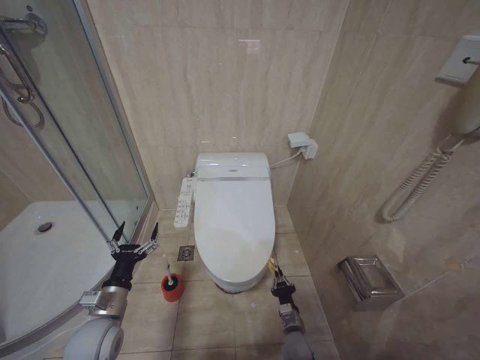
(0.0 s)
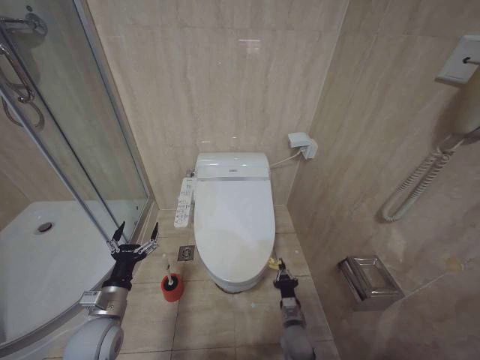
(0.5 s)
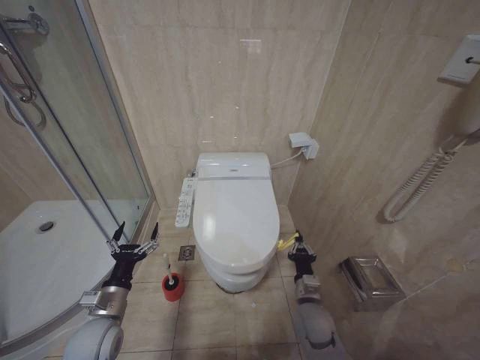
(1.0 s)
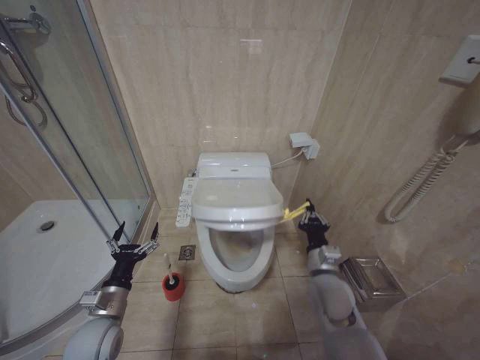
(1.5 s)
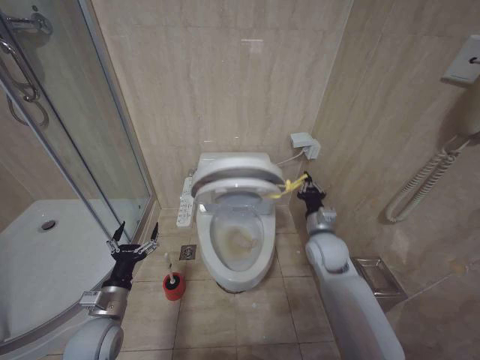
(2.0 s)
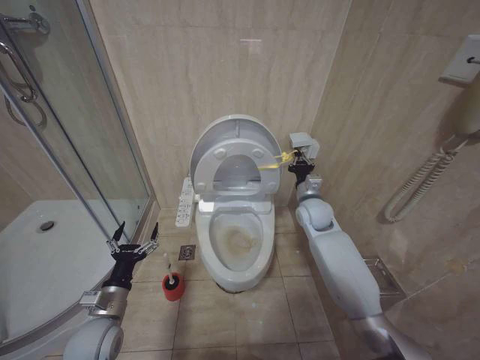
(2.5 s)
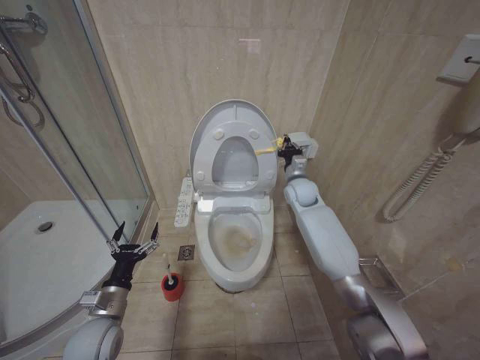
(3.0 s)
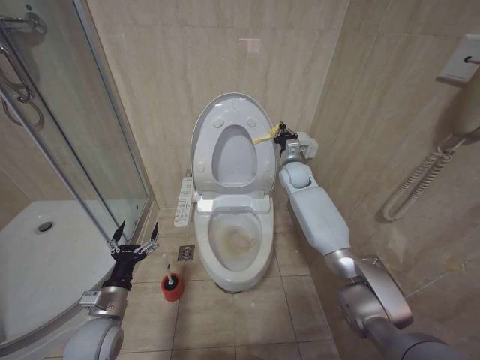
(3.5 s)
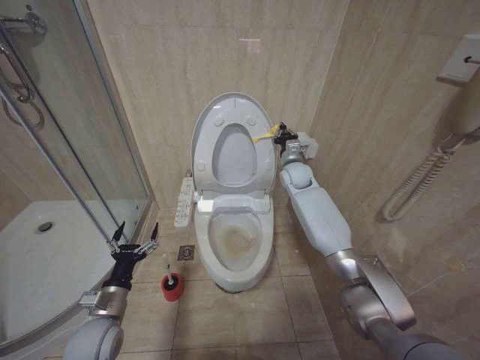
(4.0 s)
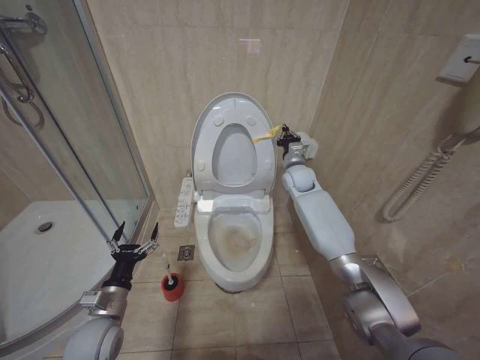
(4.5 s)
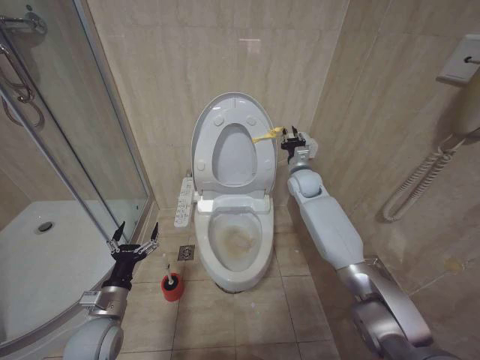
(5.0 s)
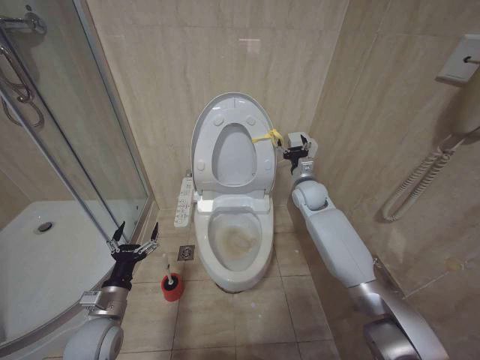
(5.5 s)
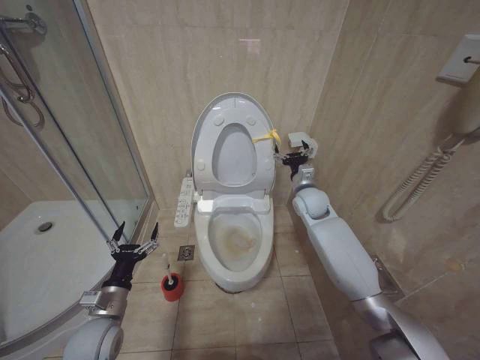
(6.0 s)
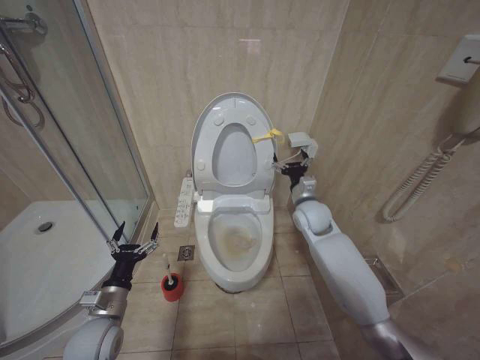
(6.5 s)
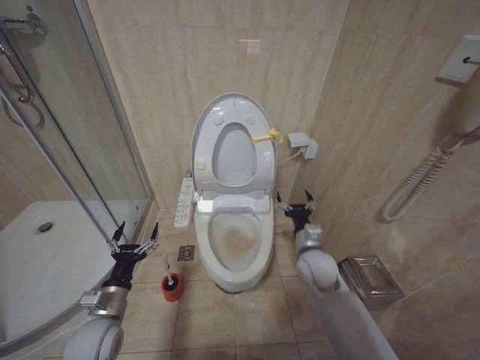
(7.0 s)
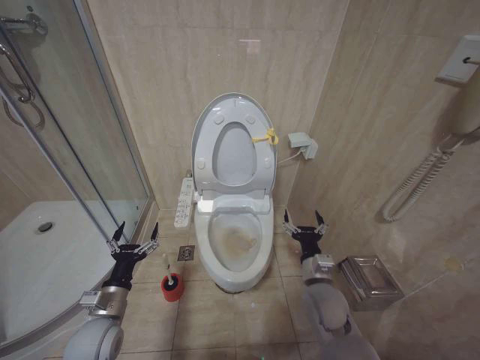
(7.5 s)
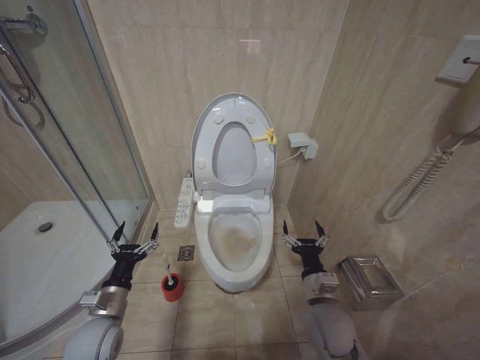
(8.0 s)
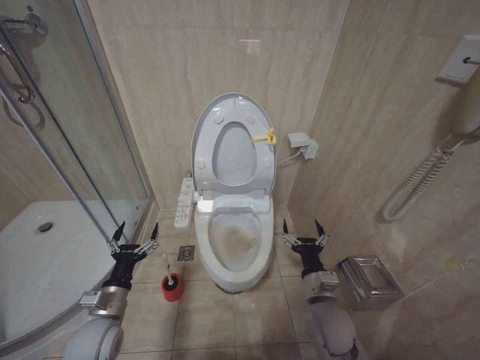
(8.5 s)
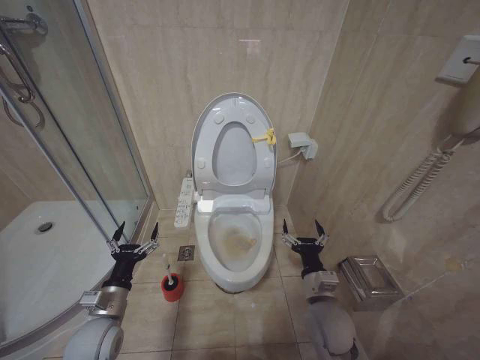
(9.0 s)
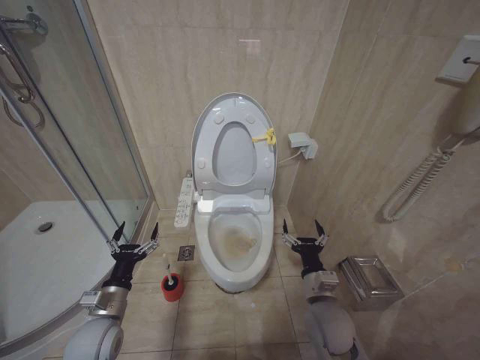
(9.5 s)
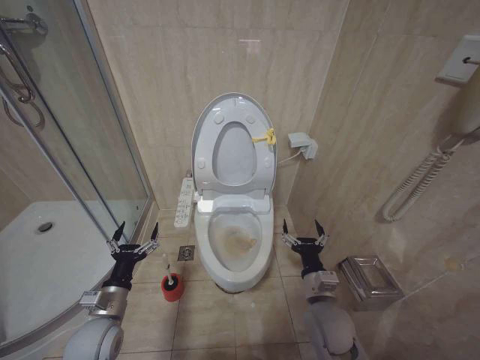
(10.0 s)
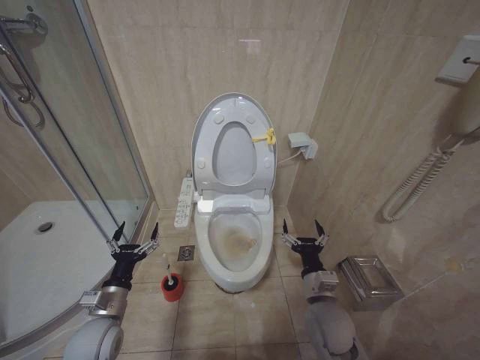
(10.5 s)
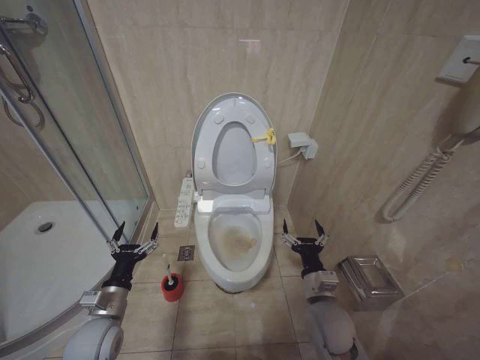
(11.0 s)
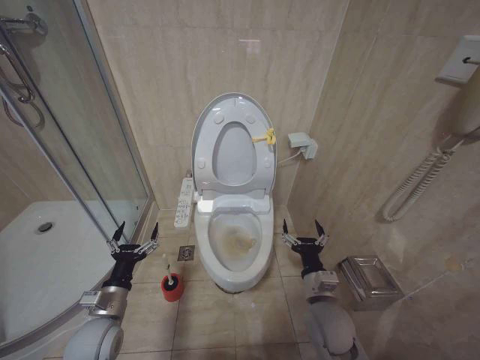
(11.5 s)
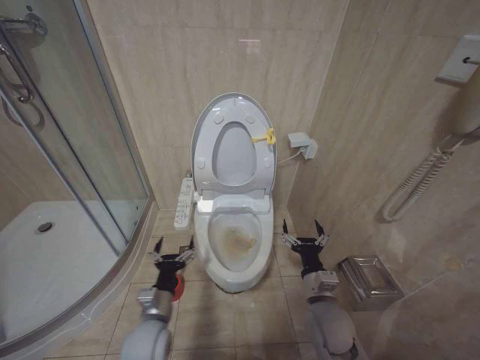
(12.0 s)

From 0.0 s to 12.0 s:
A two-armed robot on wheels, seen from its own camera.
Task of the whole recording: Open the toilet lid, clean the toilet bowl with a toilet brush, close the toilet lid, and flush.
From 0.0 s to 2.0 s: The right gripper heads upward and forward, covering roughly 30 cm.
From 2.0 s to 4.0 s: The right gripper goes some 25 cm forward and upward.
From 4.0 s to 6.0 s: The right gripper is displaced backward by roughly 10 cm, and opens up.
From 6.0 s to 8.0 s: The right gripper is displaced backward and downward by some 30 cm.
From 8.0 s to 10.0 s: Neither gripper changes place.
From 10.0 s to 12.0 s: The left gripper travels to the right by some 5 cm.

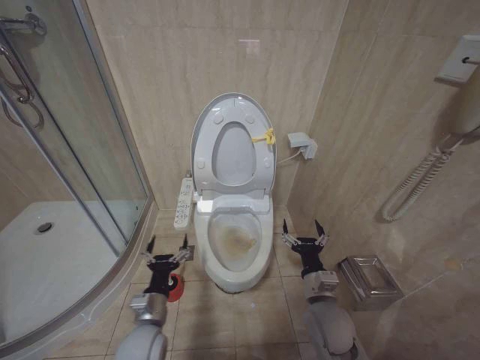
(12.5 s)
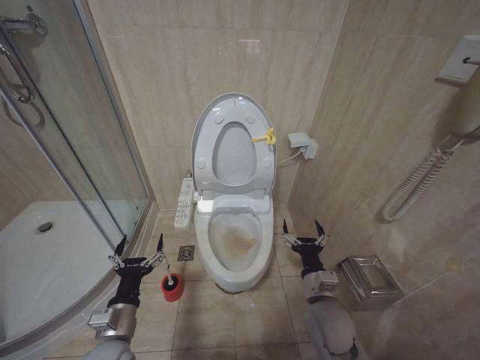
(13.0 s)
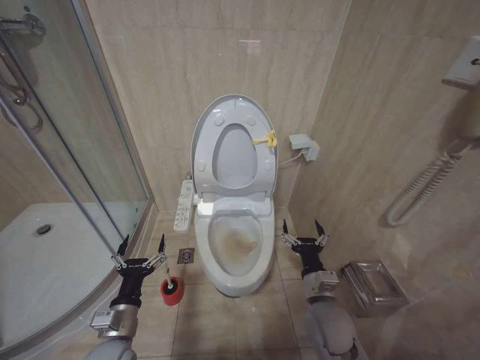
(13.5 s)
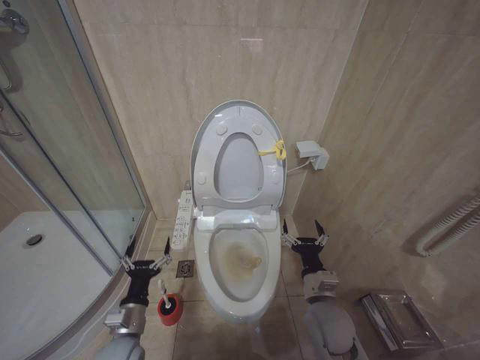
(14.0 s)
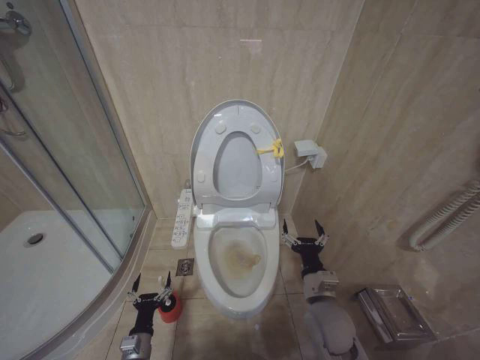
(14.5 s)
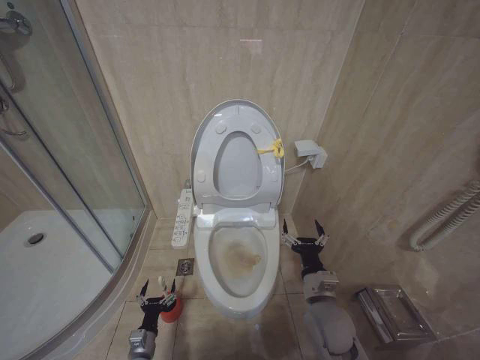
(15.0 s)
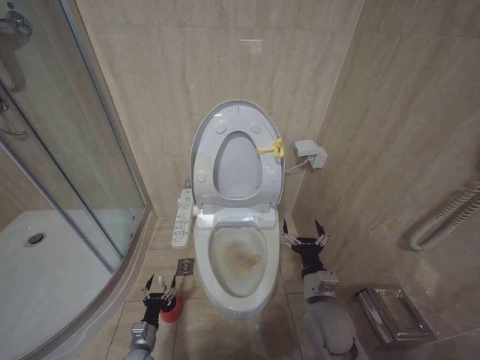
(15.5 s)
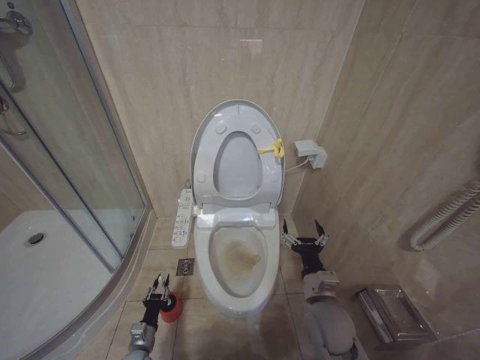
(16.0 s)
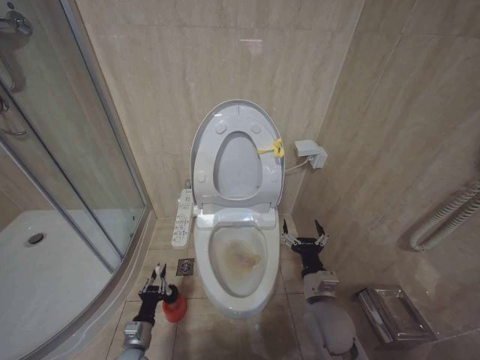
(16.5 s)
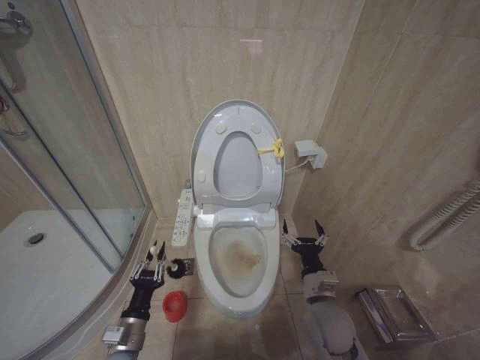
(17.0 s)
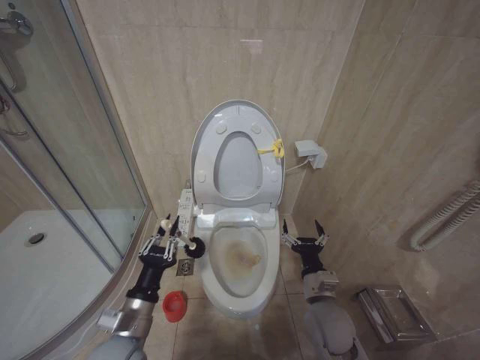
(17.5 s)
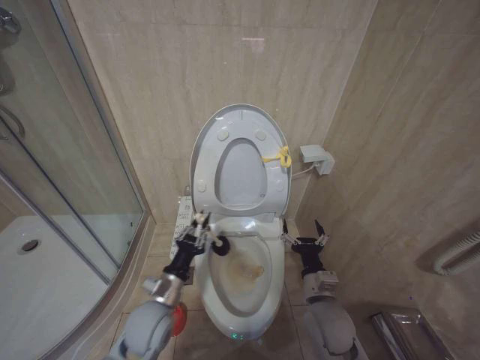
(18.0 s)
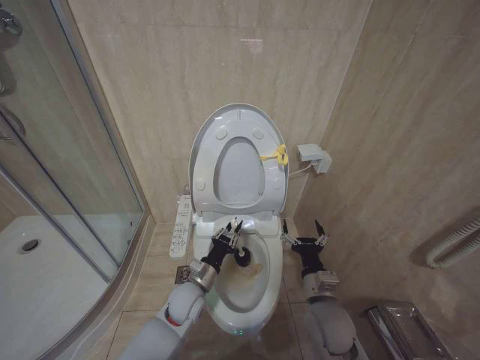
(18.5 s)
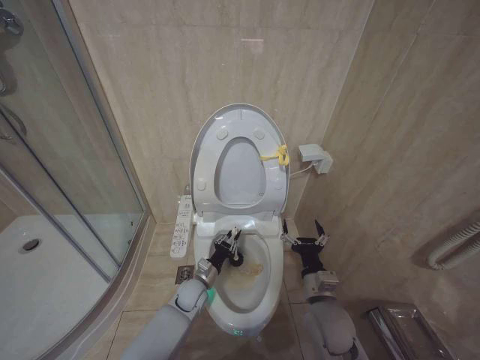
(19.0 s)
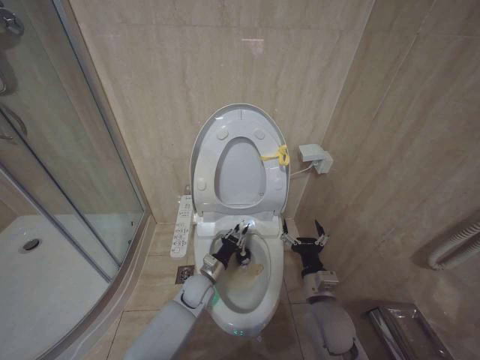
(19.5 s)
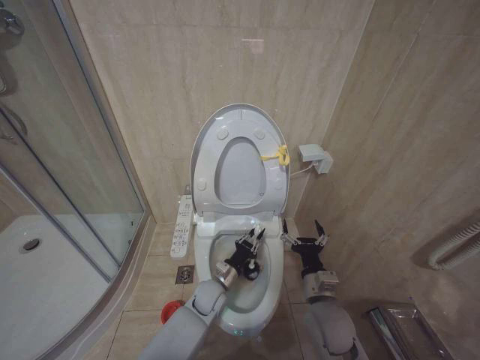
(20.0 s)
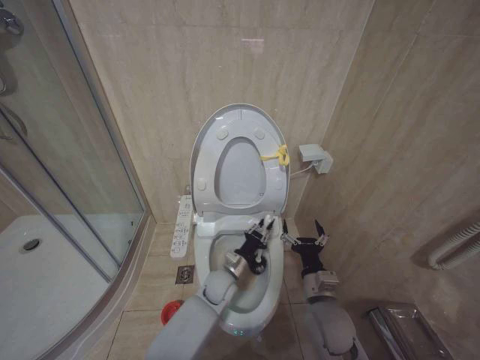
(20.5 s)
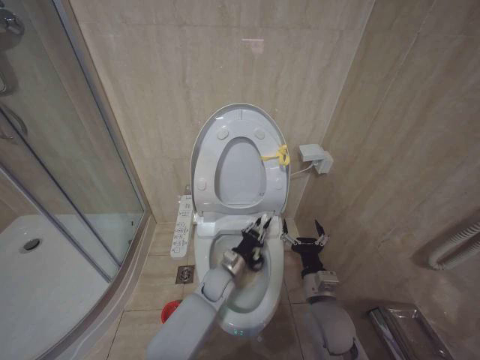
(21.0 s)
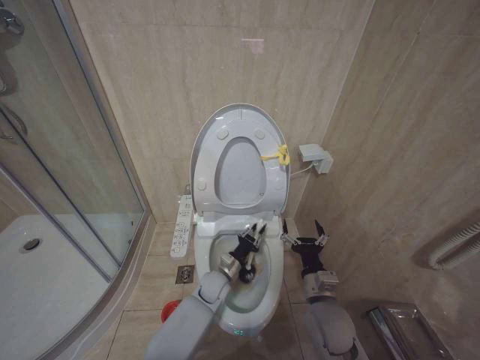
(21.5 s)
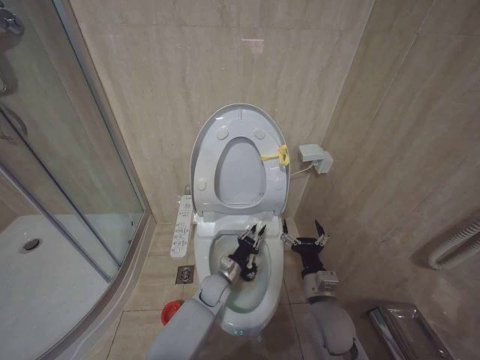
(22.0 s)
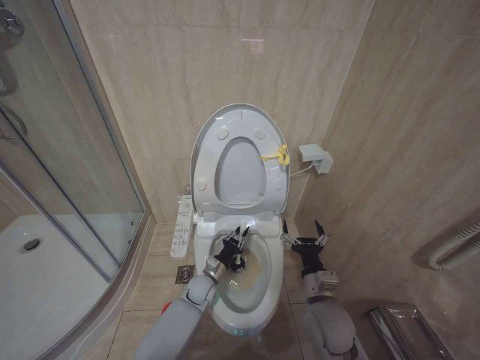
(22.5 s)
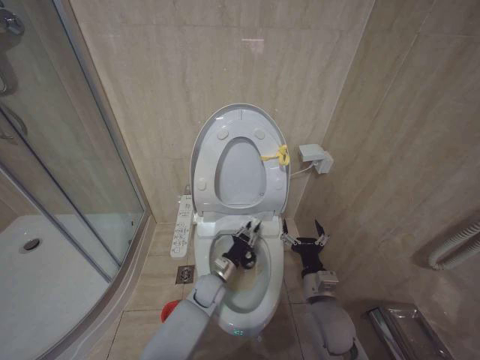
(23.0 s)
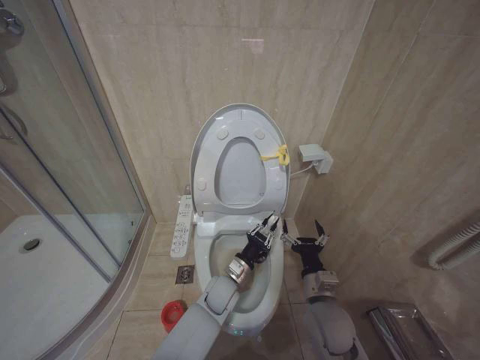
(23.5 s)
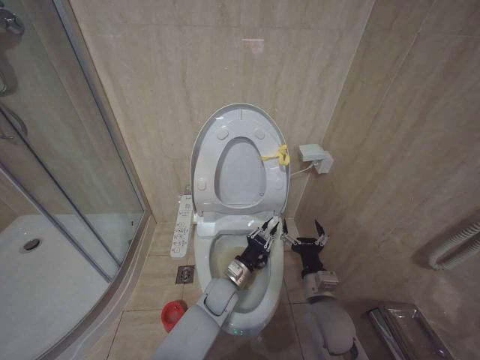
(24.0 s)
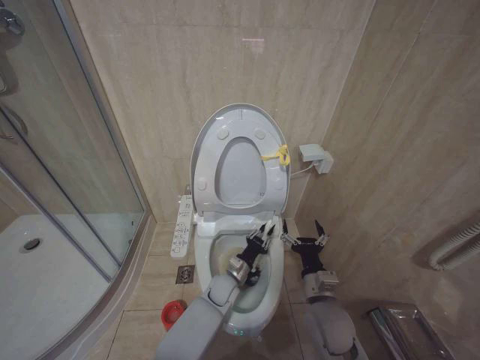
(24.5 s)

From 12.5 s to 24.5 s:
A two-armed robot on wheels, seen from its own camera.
Task of the whole recording: Open the toilet lid, clean the toilet bowl with a toilet brush, close the toilet lid, and flush.
From 12.5 s to 14.5 s: The left gripper shifts roughly 15 cm downward and to the left.
From 14.5 s to 16.5 s: The left gripper goes downward and returns, some 10 cm each way, and closes its fingers.
From 16.5 s to 18.5 s: The left gripper heads upward, to the right and forward, covering roughly 25 cm.
From 18.5 s to 20.5 s: The left gripper heads to the right and forward, covering roughly 10 cm.
From 20.5 s to 22.5 s: The left gripper shifts roughly 5 cm downward.
From 22.5 s to 24.5 s: The left gripper shifts about 5 cm to the right.

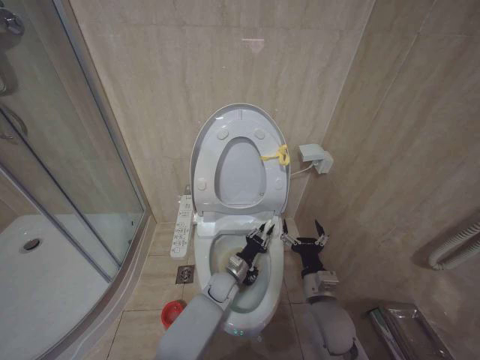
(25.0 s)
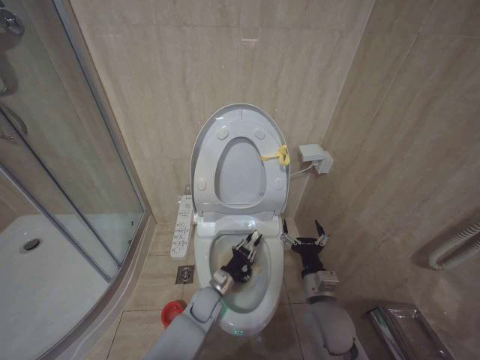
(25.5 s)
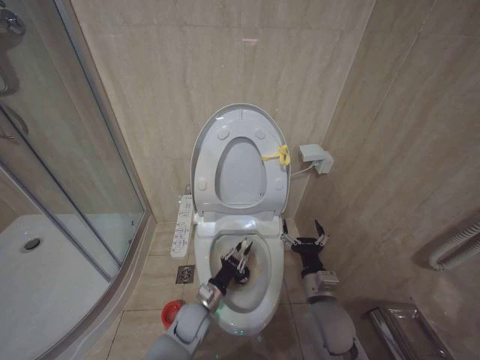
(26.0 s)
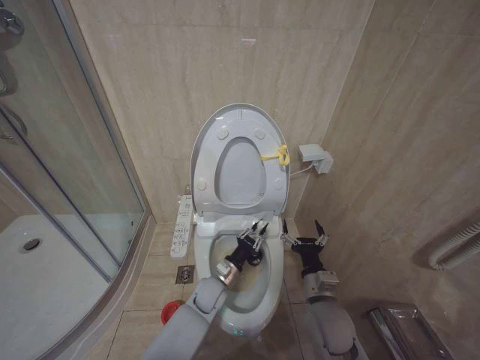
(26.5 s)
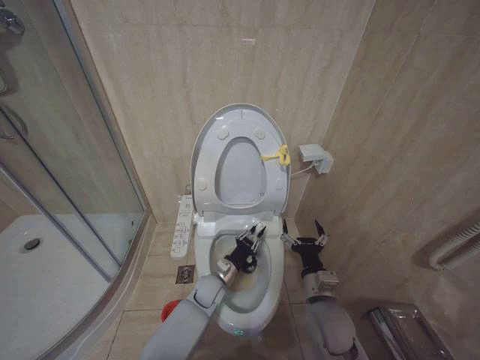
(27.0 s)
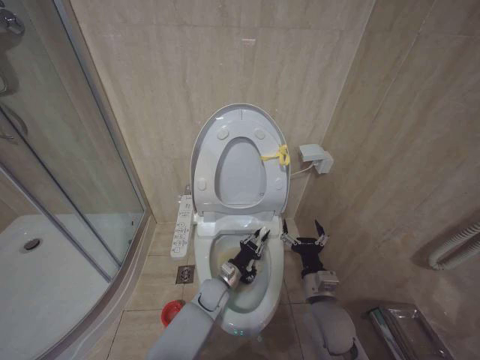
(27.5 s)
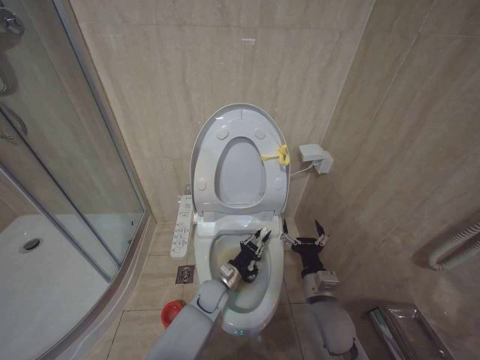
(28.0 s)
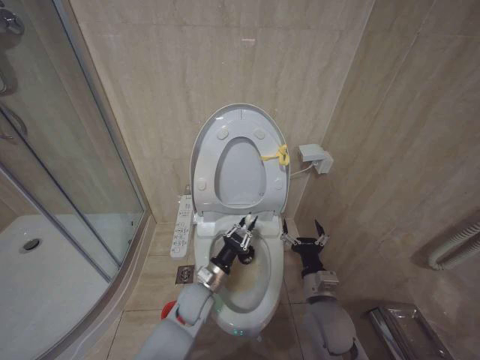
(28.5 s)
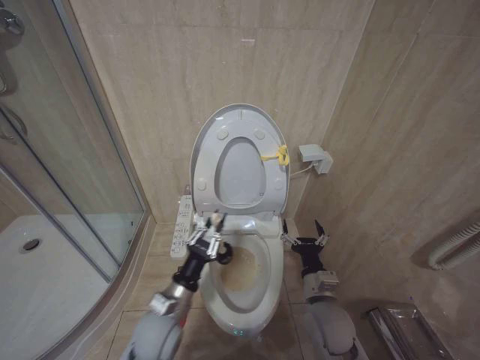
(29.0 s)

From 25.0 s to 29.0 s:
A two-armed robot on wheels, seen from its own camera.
Task of the whole recording: Open the toilet lid, clean the toilet bowl with a toilet brush, close the toilet lid, and flush.
From 25.0 s to 27.0 s: The left gripper is displaced to the left by approximately 5 cm.
From 27.0 s to 29.0 s: The left gripper moves upward, backward and to the left, approximately 20 cm.
